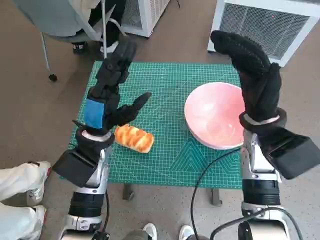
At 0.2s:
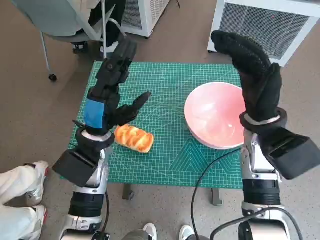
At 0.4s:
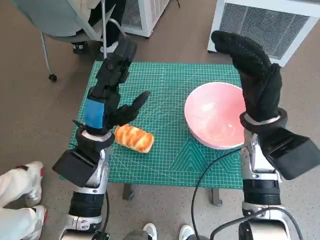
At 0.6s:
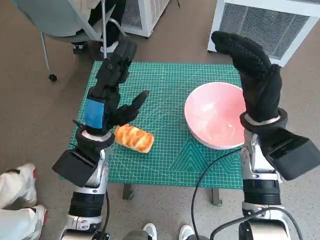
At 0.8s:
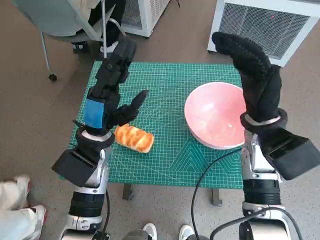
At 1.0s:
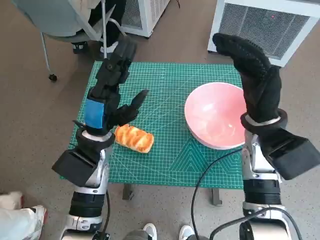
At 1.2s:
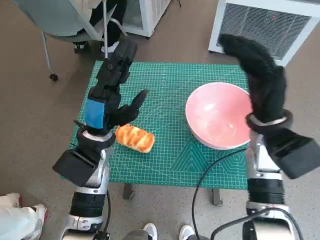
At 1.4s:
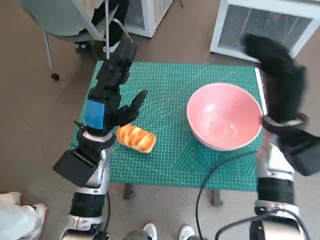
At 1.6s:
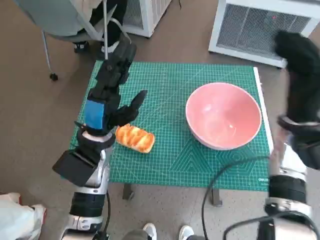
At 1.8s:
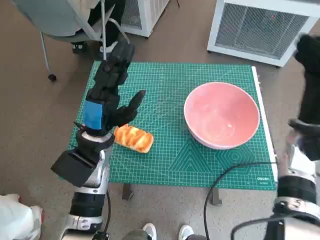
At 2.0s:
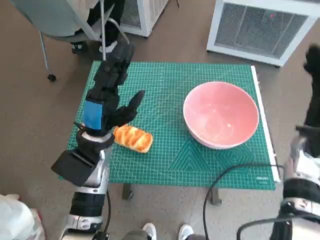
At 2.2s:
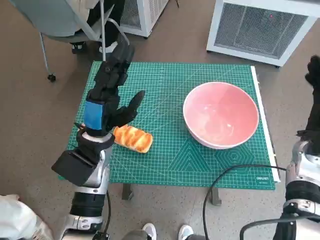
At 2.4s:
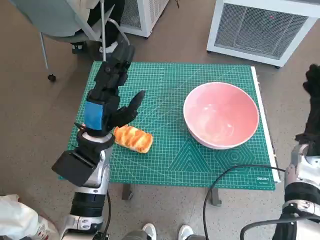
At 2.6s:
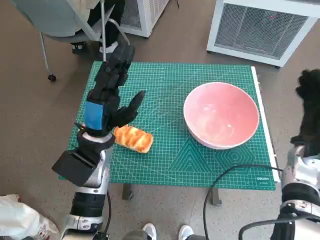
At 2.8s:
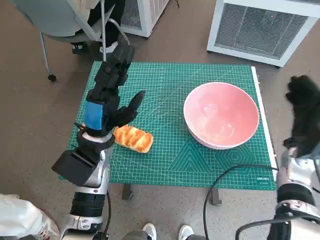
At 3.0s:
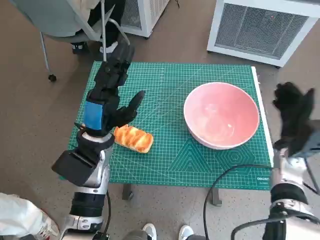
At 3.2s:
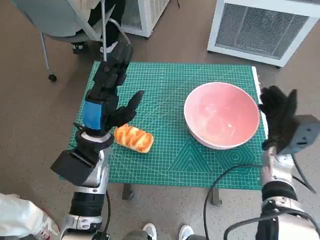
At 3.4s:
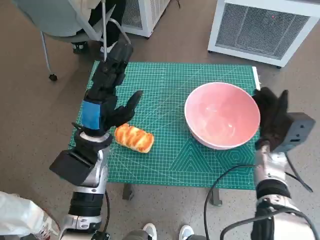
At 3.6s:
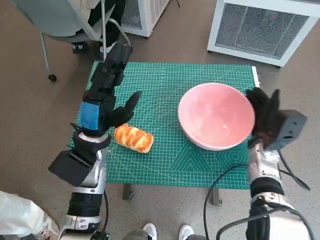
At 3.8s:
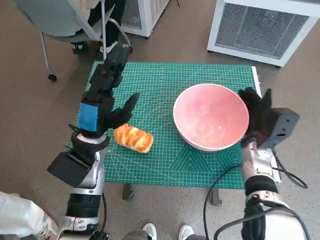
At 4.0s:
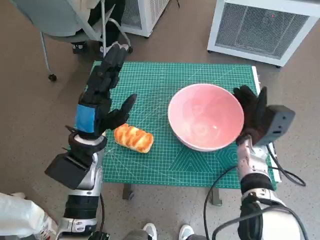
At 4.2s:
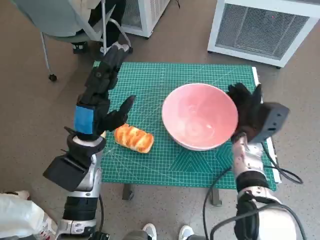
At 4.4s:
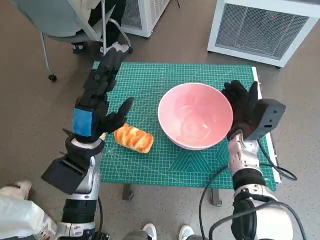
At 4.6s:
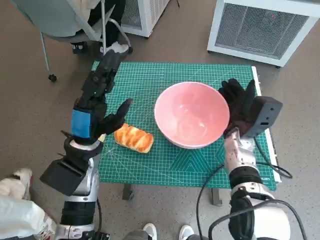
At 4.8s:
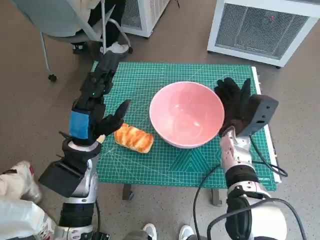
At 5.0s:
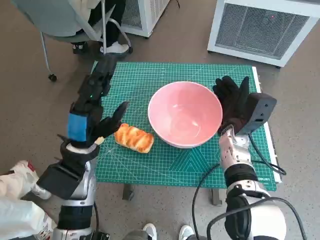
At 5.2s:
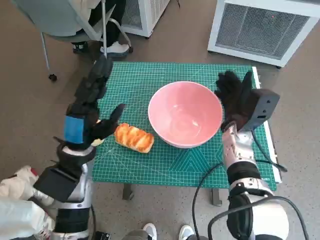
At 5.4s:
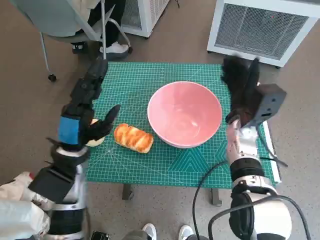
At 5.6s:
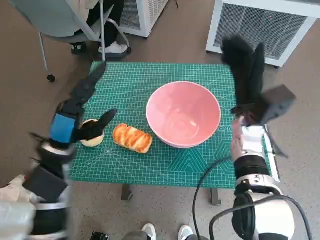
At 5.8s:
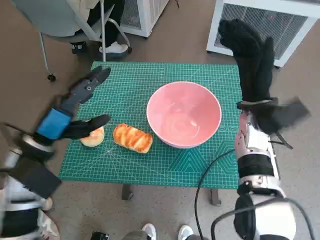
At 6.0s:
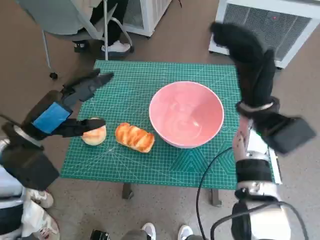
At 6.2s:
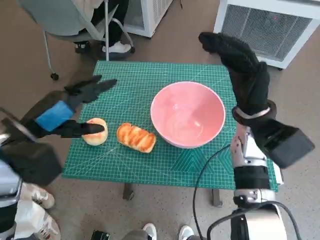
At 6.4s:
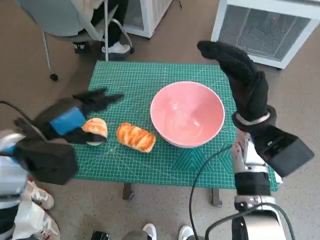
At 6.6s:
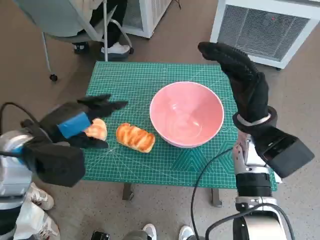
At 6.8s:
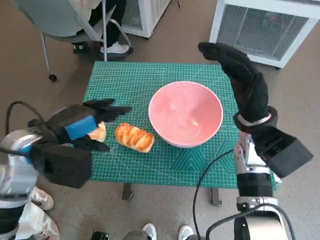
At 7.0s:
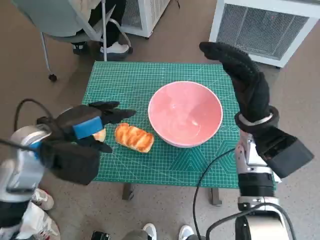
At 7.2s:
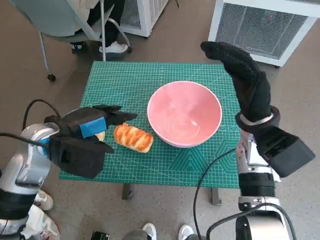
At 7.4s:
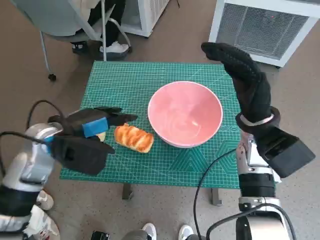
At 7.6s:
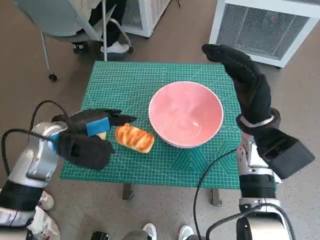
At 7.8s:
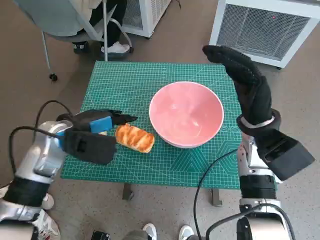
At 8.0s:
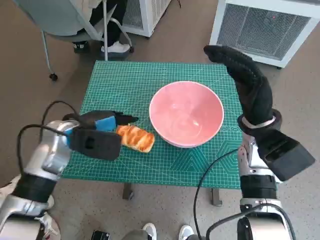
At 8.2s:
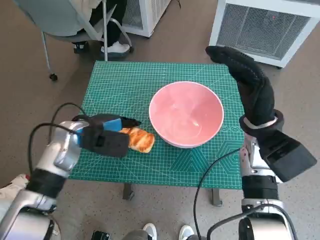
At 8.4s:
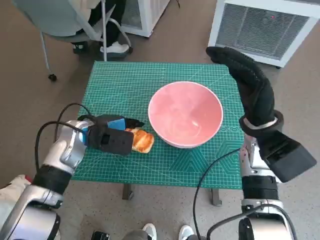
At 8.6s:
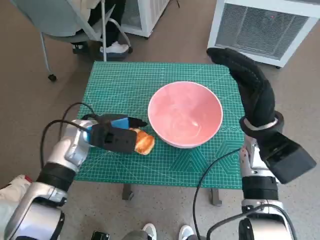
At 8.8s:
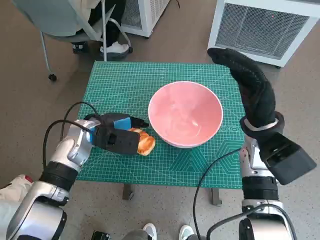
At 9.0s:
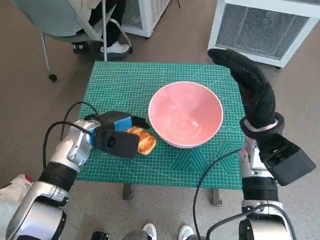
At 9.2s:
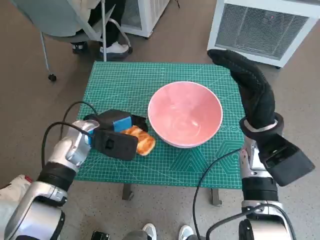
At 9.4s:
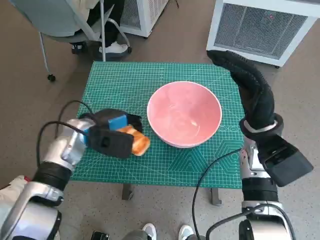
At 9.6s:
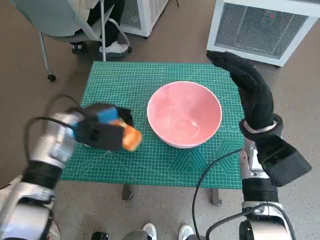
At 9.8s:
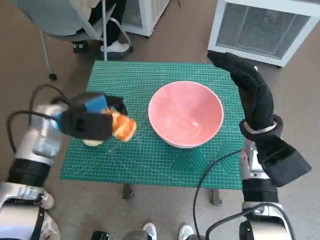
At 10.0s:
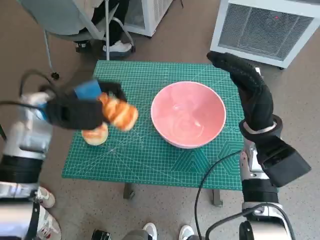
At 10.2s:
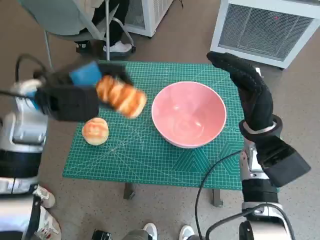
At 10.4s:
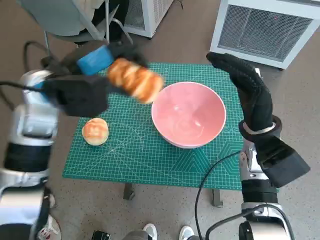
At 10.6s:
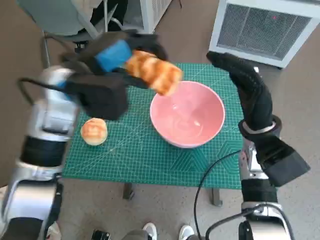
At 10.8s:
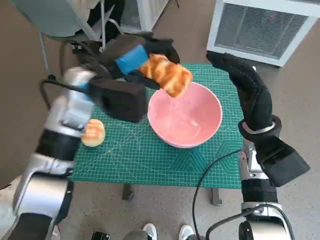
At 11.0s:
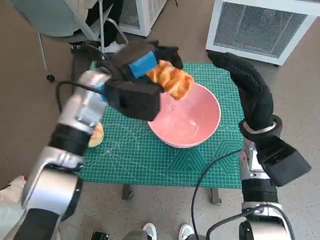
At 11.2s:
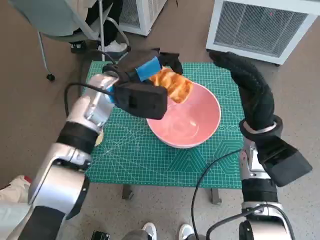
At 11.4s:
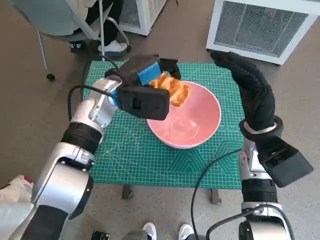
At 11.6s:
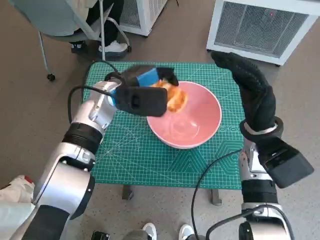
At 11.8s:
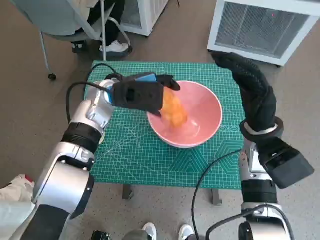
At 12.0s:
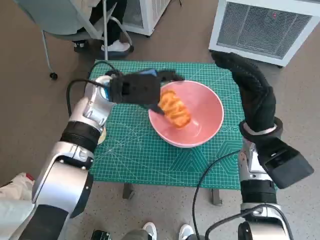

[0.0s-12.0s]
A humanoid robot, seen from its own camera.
Task of the whole recording: Push the bowl to the center of the table and put the bread into the bowl.
Step, 0.0s to 5.4s: Move the pink bowl to the center of table with right hand.
Step, 5.6s to 9.4s: Grasp the long bread with left hand.
1.6s to 3.0s: The right hand is displaced downward by about 10 cm.
3.0s to 4.4s: The right hand moves to the left, about 10 cm.
4.4s to 6.0s: The right hand shifts about 10 cm upward. Meanwhile the left hand goes approximately 10 cm to the left and upward.
6.0s to 7.6s: The left hand moves roughly 5 cm.
7.6s to 9.0s: The left hand shifts roughly 5 cm downward.
9.0s to 10.4s: The left hand goes about 15 cm upward.
10.4s to 12.0s: The left hand heads to the right, downward and forward, covering roughly 10 cm.

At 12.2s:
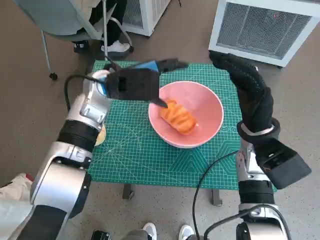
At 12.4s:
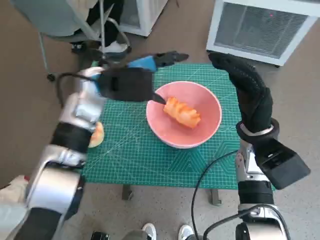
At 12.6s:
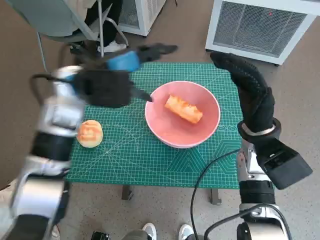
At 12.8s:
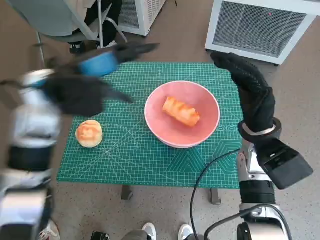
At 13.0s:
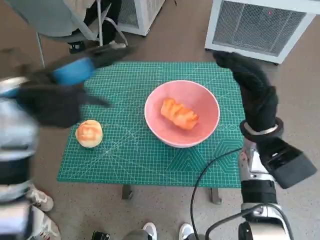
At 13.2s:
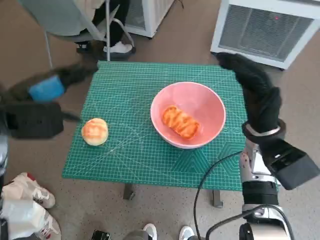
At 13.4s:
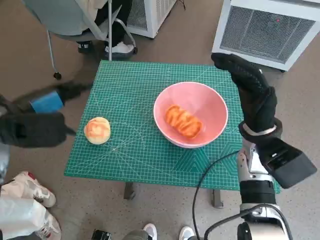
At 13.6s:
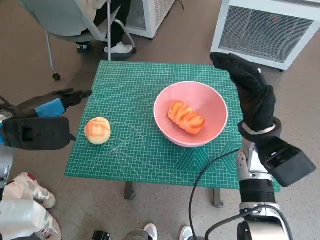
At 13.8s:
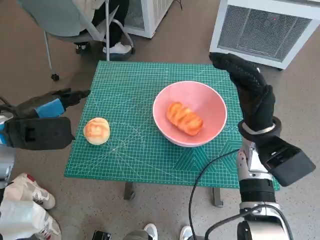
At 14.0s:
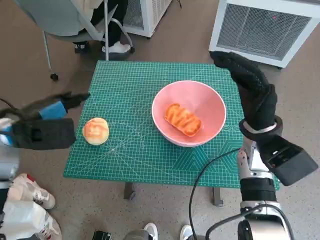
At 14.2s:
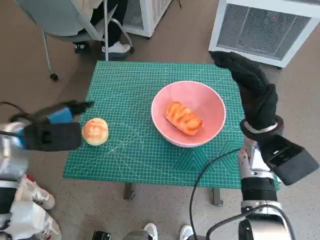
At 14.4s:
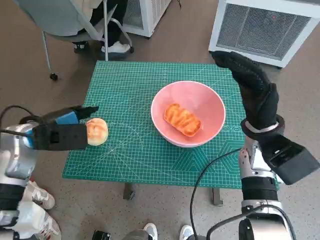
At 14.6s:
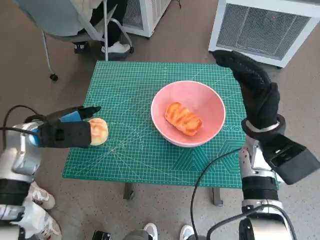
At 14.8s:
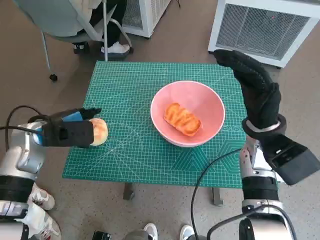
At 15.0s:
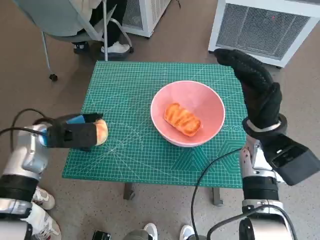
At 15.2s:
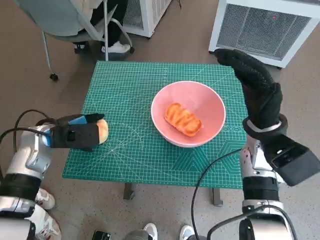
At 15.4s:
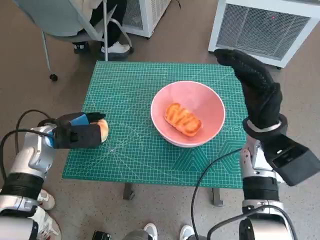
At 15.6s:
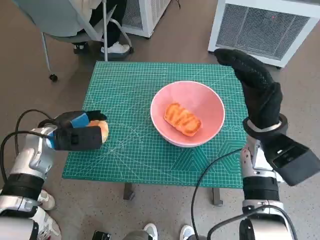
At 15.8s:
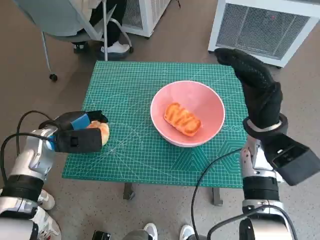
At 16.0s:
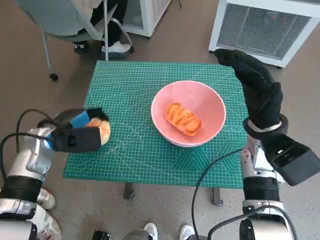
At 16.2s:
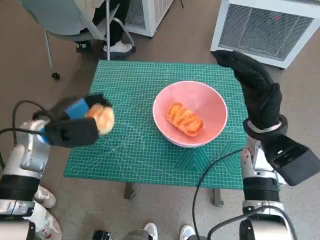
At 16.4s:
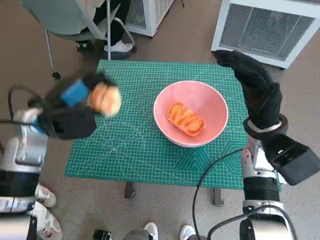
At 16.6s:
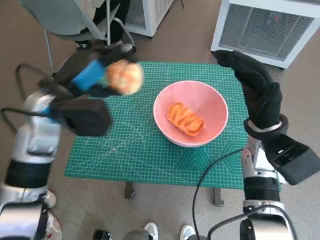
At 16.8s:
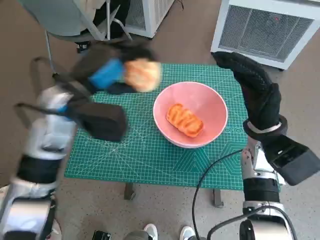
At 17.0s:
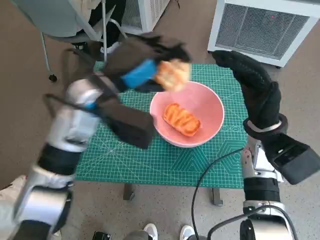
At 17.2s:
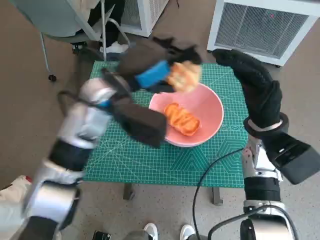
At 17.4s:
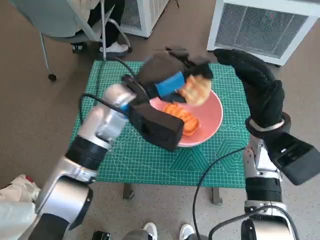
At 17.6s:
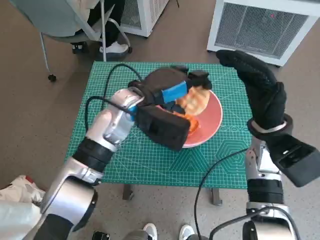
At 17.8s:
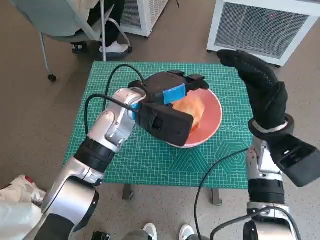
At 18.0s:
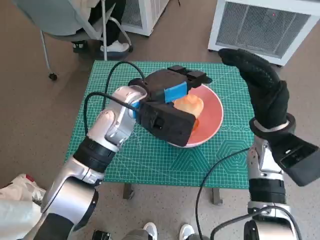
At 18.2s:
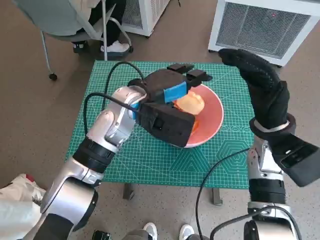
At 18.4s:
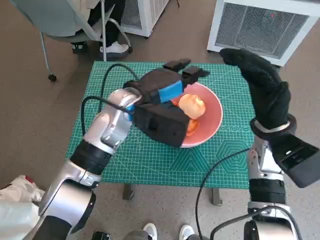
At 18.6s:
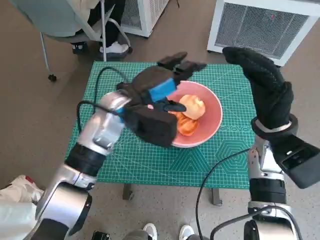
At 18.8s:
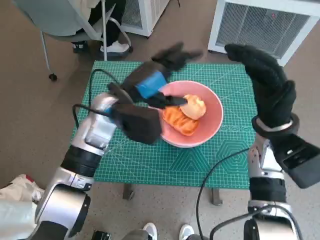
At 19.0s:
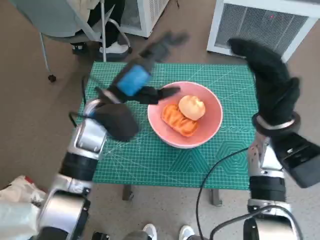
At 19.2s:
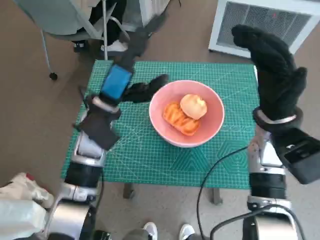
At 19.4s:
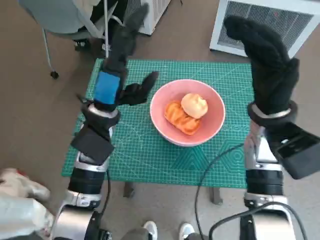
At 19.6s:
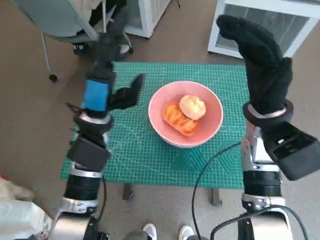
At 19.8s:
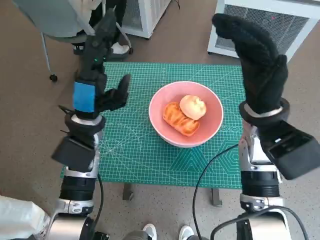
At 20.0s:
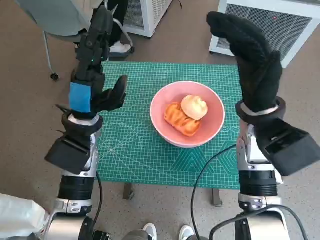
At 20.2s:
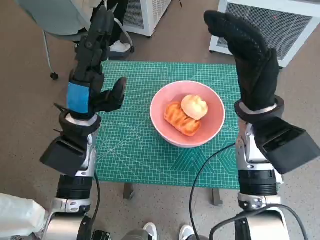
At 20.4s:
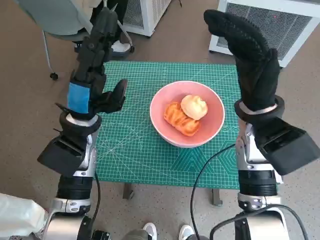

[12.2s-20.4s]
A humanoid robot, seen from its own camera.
Task of the whole recording: Push the bowl to the center of the table and put the bread into the bowl.
Step, 12.4s to 15.8s: Grasp the round bread with left hand.
Step, 16.0s to 18.0s: Place the round bread in pink bowl with left hand.
12.2s to 13.8s: The left hand goes approximately 20 cm to the left and backward.
13.8s to 15.4s: The left hand shifts approximately 10 cm downward.
15.4s to 17.2s: The left hand moves to the right and upward, some 20 cm.
18.8s to 20.4s: The left hand moves to the left, about 5 cm. Meanwhile the right hand changes place by approximately 5 cm.

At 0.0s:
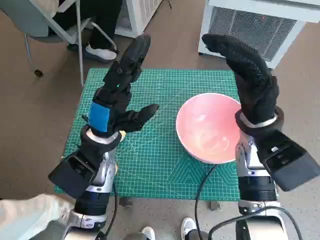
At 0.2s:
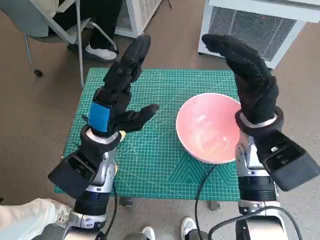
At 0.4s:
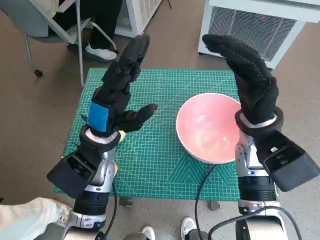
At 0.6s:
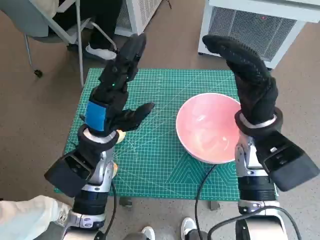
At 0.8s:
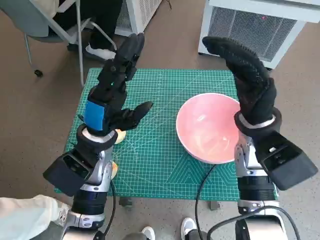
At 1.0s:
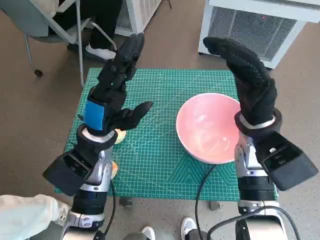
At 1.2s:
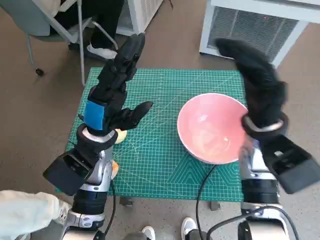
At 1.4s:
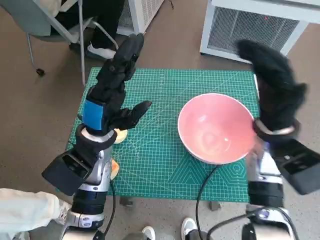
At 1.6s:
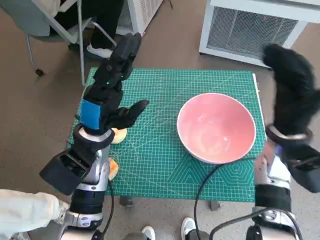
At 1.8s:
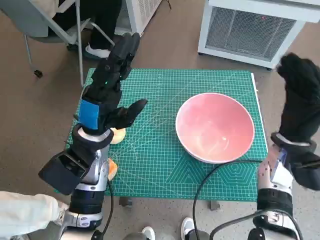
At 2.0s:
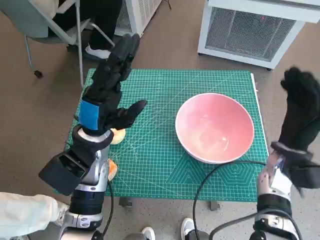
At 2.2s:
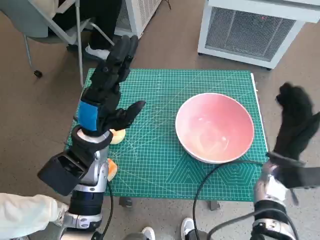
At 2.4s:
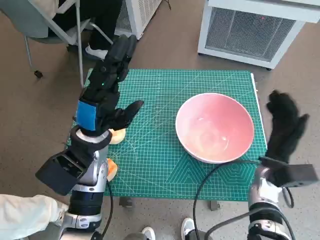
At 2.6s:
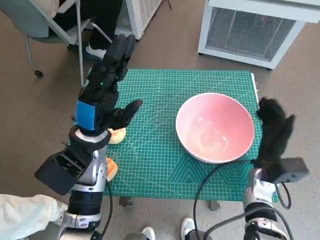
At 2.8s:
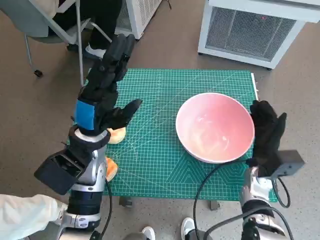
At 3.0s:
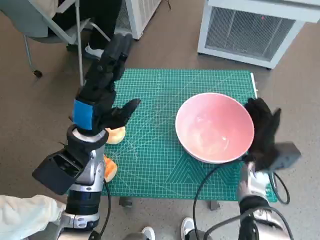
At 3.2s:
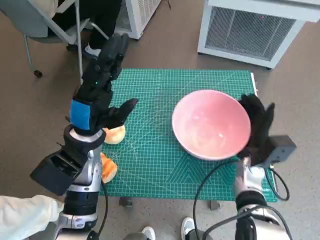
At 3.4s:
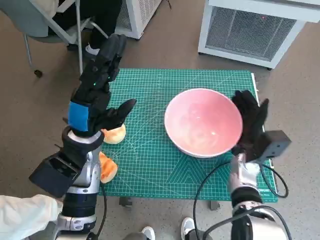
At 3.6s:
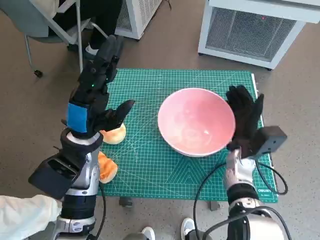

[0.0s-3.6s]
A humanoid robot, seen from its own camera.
Task of the whole recording: Push the bowl to the center of the table and put the bread into the bowl.
1.8s to 3.6s: The right hand travels downward and to the left by roughly 10 cm.
